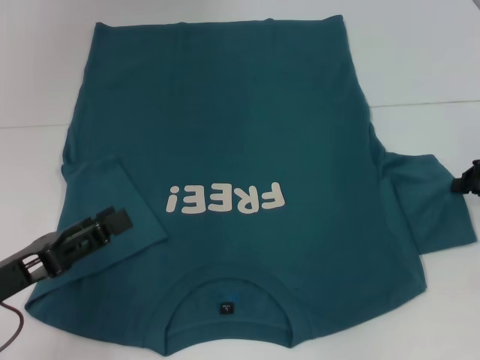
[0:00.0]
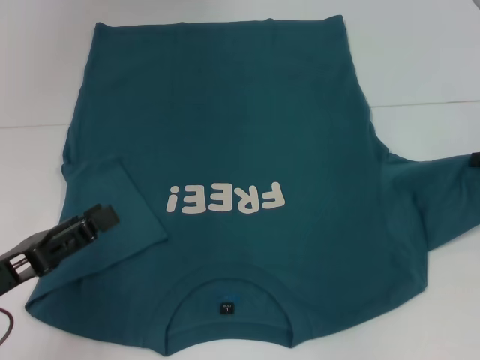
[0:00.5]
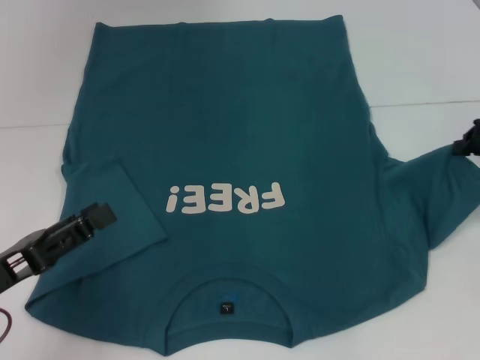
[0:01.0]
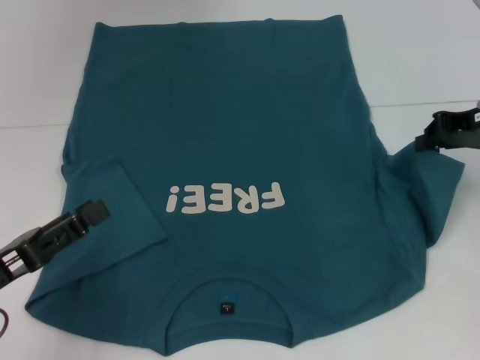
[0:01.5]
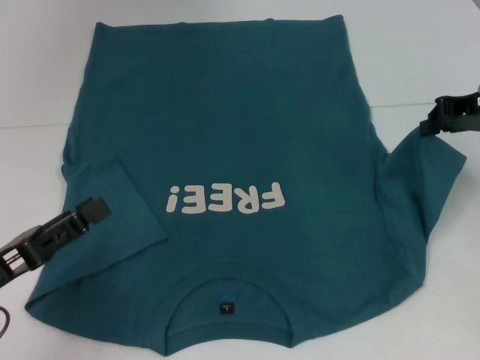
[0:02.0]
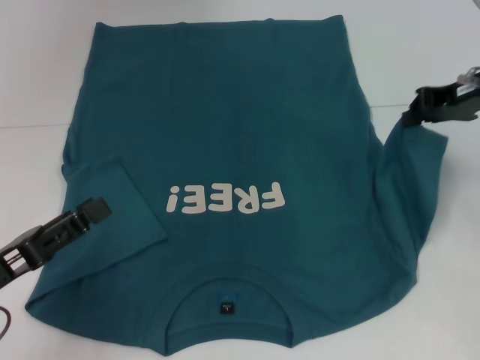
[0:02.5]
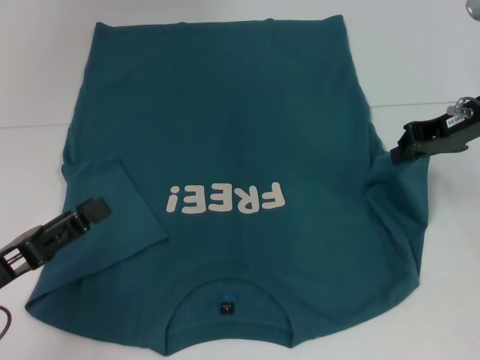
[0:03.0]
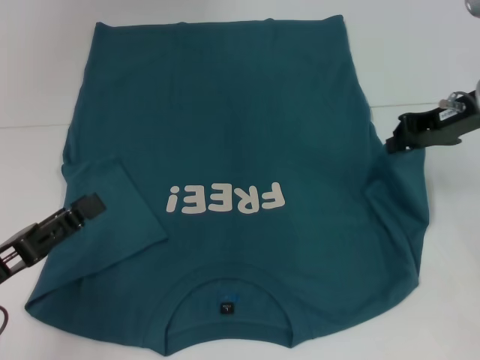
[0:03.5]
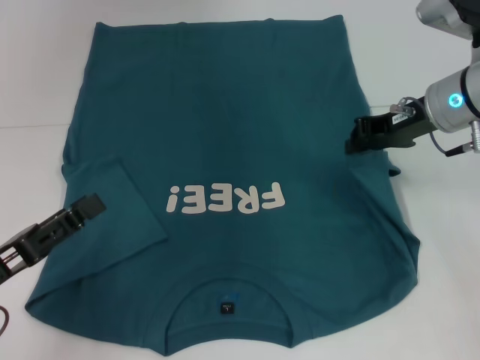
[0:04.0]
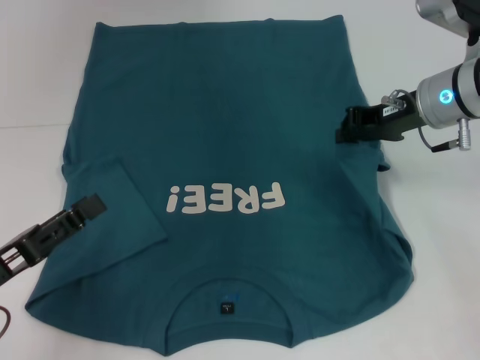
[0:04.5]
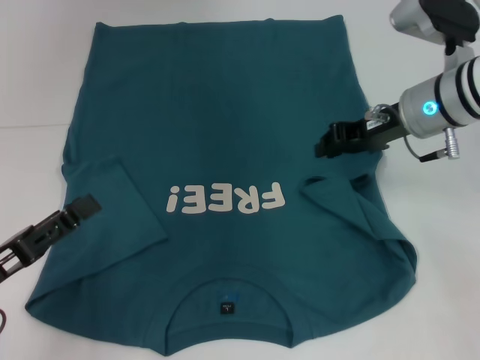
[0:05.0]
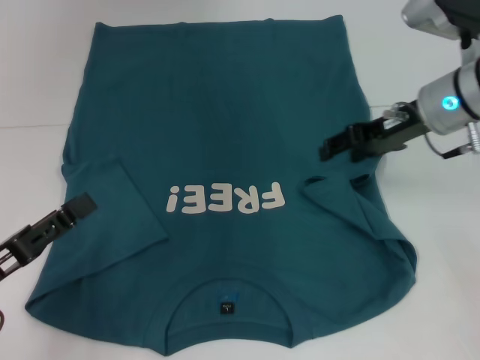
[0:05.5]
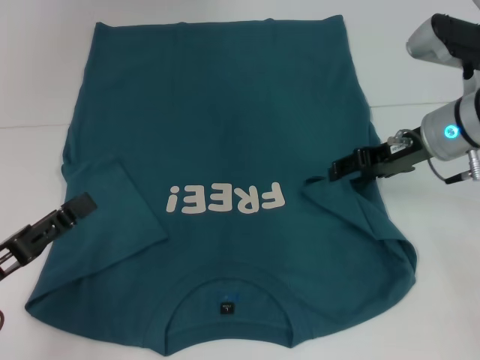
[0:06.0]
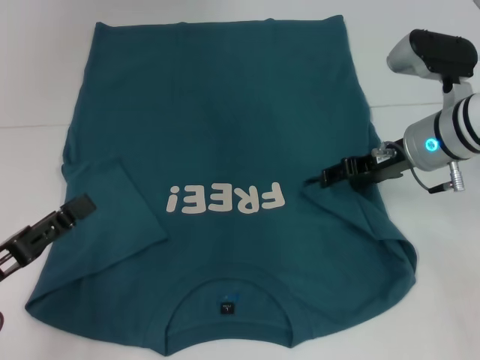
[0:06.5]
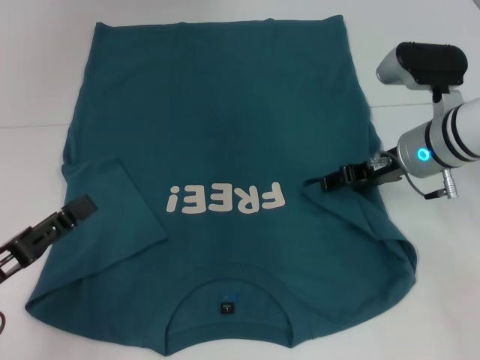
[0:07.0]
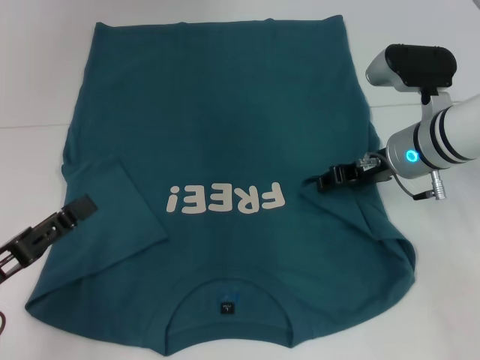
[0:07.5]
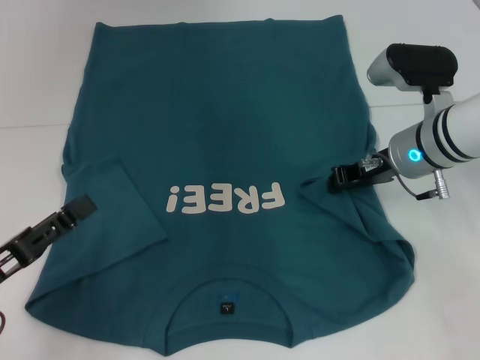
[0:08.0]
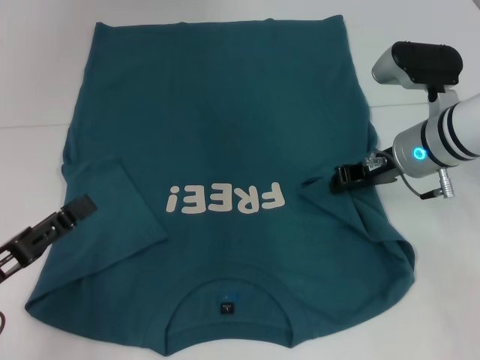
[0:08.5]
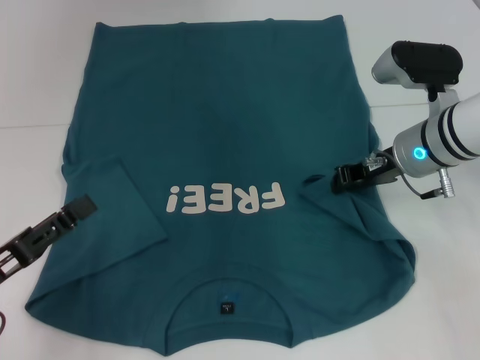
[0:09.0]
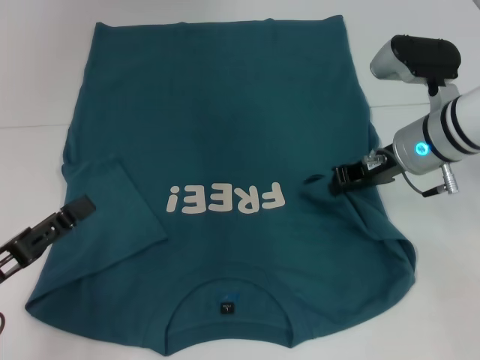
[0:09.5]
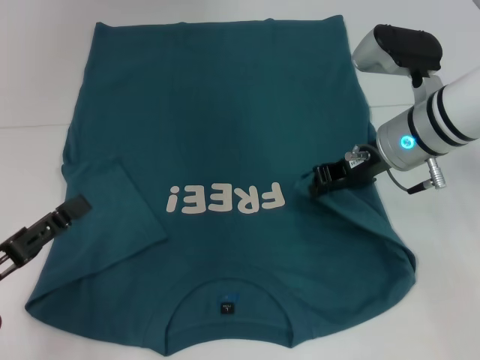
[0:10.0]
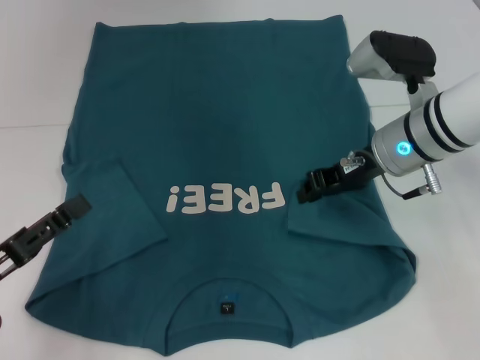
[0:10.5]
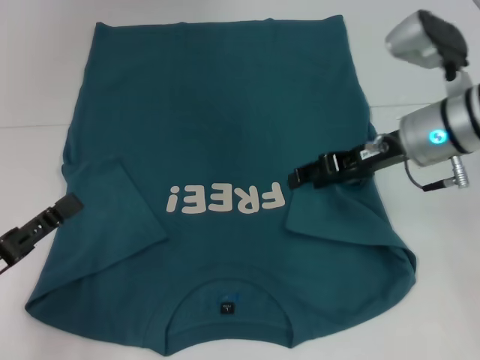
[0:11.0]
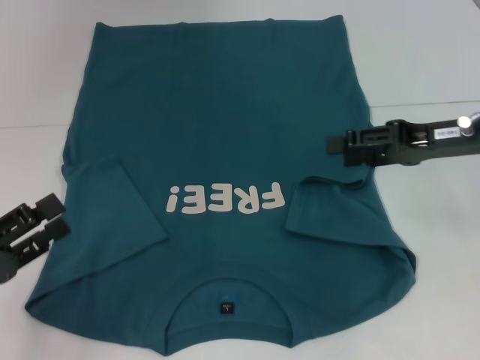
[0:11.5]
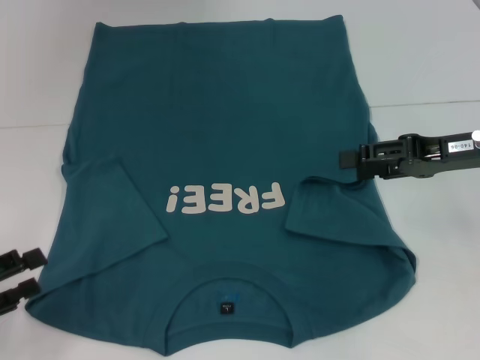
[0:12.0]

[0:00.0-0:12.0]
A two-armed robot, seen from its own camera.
Step, 0:00.0 to 0:10.5: Fold the bottom right sleeve to the right.
0:00.0 to 0:02.0: The right gripper is displaced upward, to the left and forward by roughly 10 cm.
0:02.0 to 0:04.0: The right gripper heads to the left, covering about 10 cm.
0:04.0 to 0:06.0: The right gripper opens its fingers.
0:06.0 to 0:08.0: The right gripper closes its fingers.
0:08.0 to 0:10.0: The grippers make only small movements.
0:10.0 to 0:12.0: The right gripper shifts approximately 10 cm to the right and backward, and opens up. The left gripper is displaced to the left by about 5 cm.

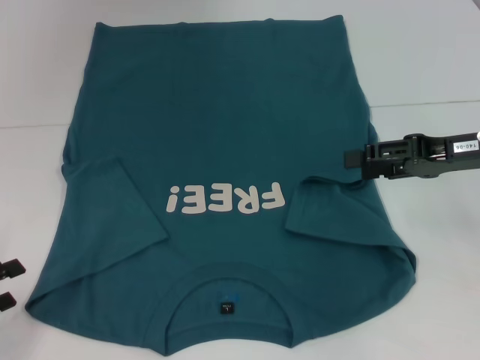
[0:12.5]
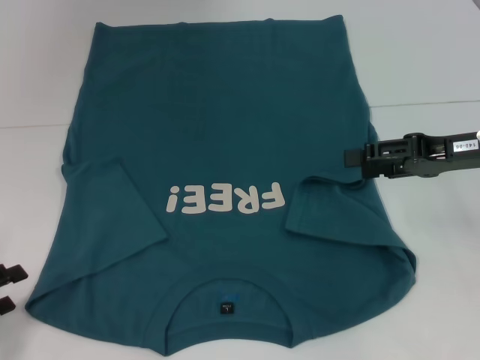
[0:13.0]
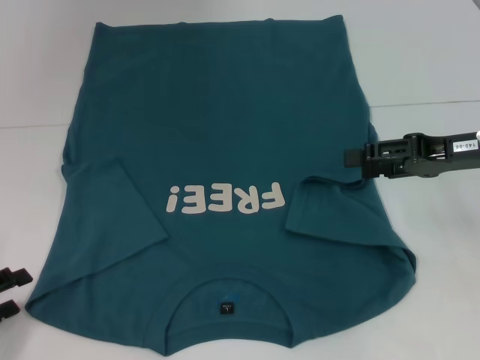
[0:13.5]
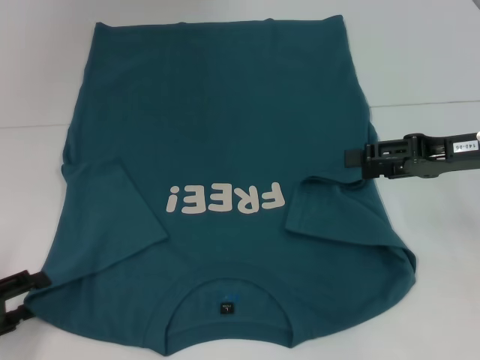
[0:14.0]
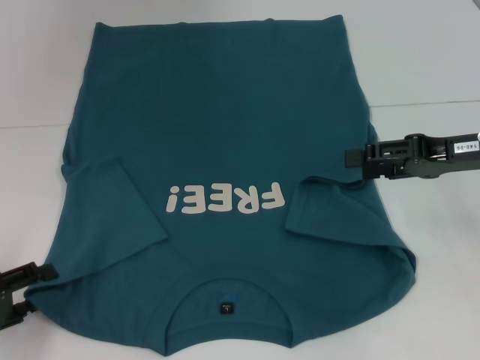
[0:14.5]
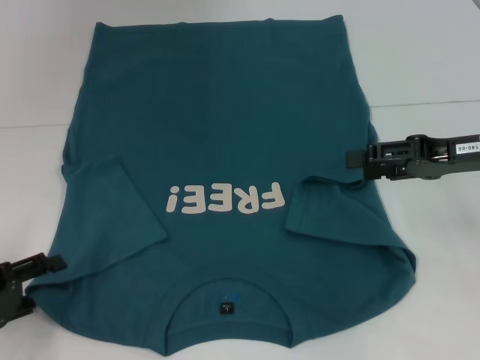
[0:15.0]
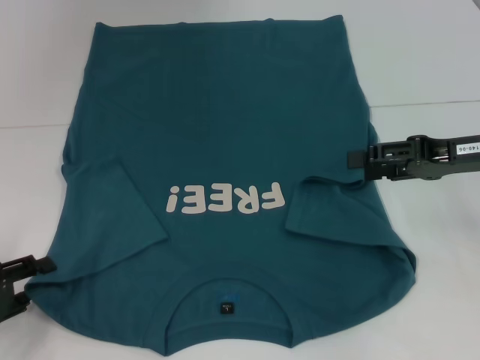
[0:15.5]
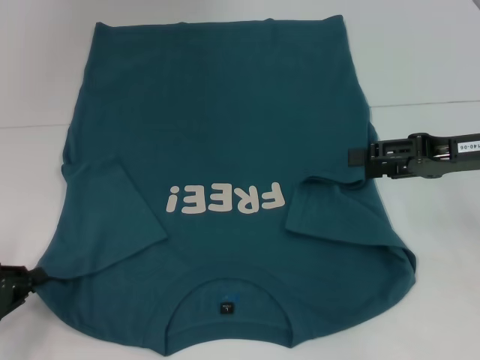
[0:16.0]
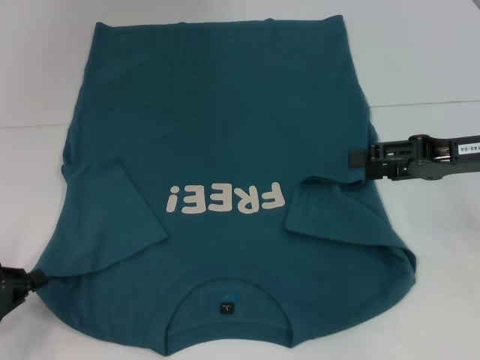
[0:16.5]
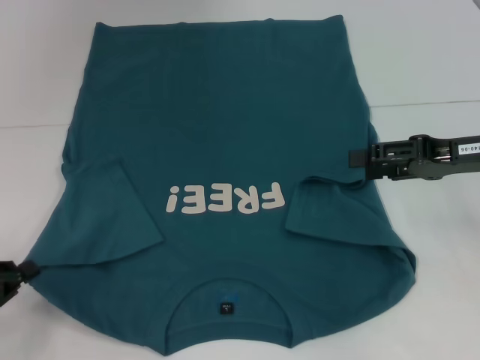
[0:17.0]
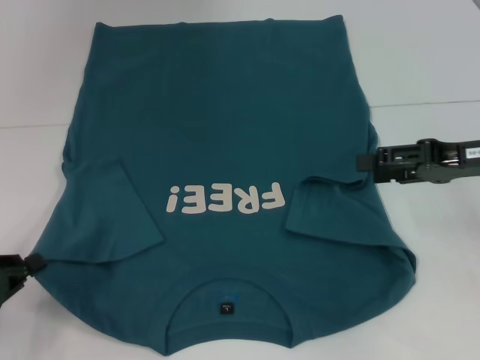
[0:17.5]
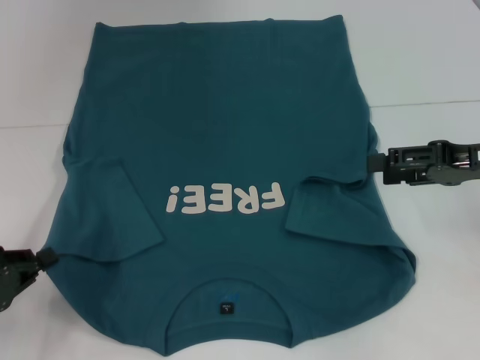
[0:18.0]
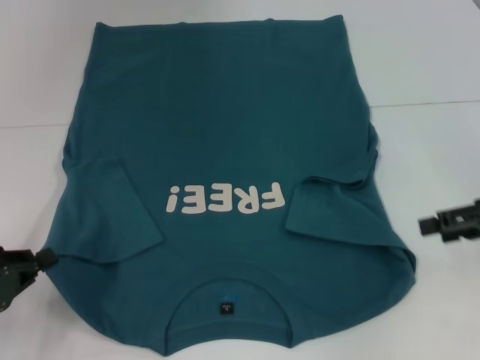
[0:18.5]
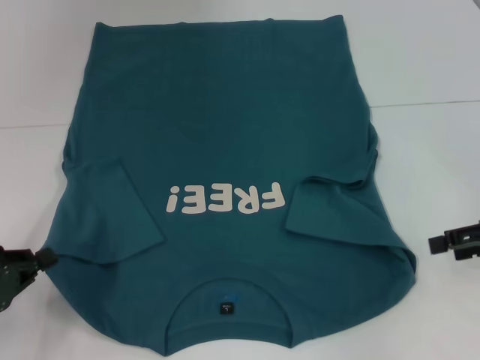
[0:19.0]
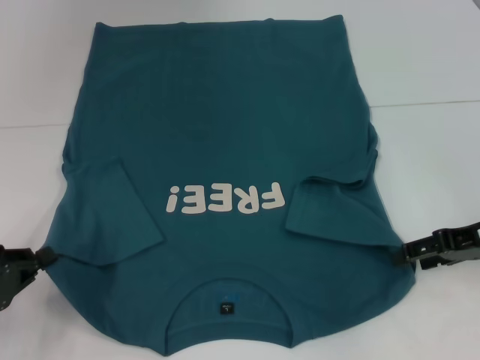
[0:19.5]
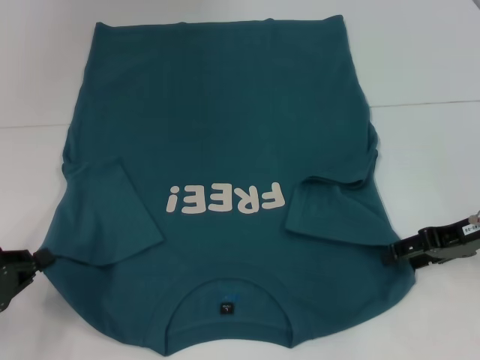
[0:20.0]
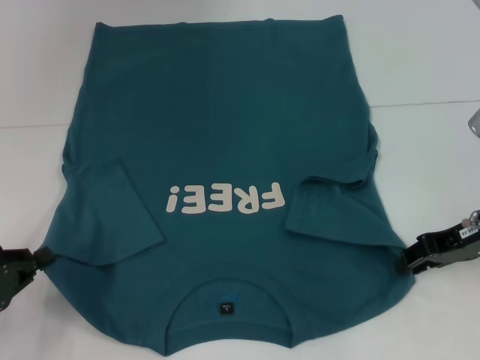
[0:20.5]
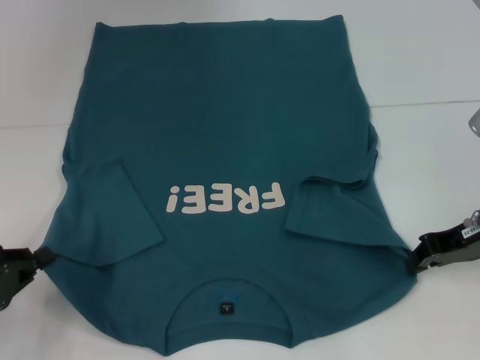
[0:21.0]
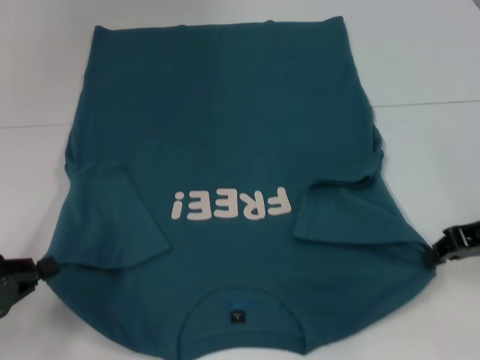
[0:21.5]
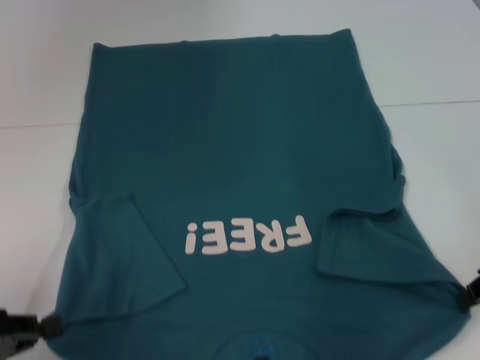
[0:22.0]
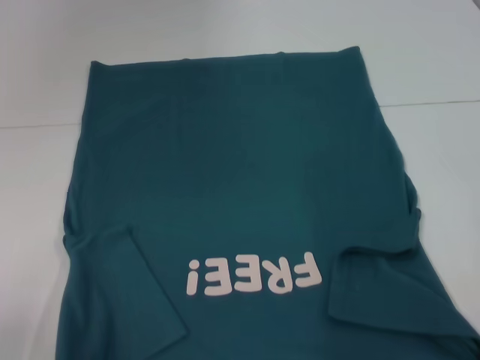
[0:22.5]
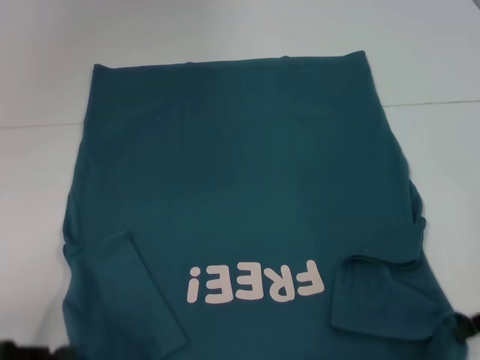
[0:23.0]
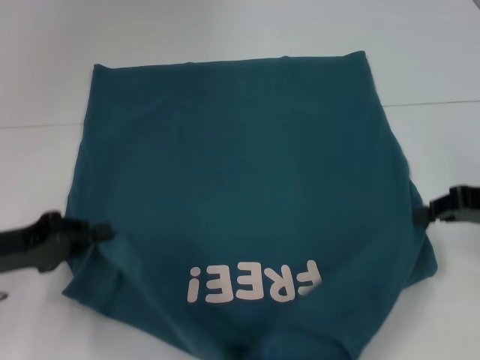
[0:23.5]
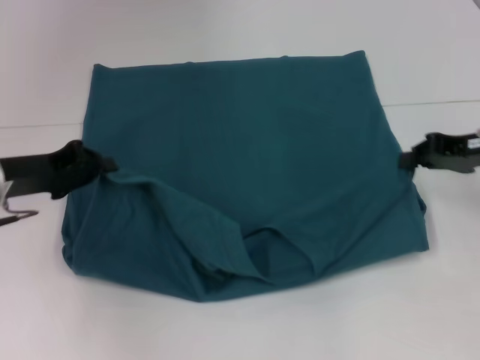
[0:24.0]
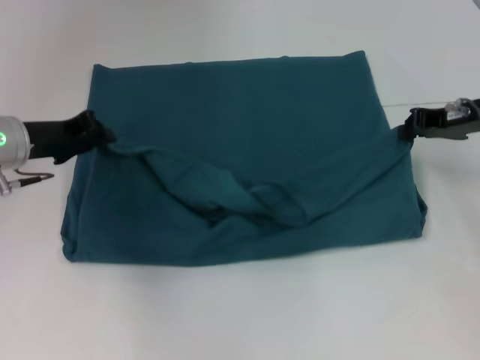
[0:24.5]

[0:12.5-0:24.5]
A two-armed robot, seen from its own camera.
Step, 0:12.5 to 0:16.0: Grab the bottom left corner with your left hand.
Step, 0:16.5 to 0:21.0: Grab the bottom right corner with your right hand.
0:12.5 to 0:14.5: The grippers stay close to where they were, moving slightly.
0:14.5 to 0:16.5: The left gripper closes.
0:16.5 to 0:18.5: The right gripper goes approximately 5 cm to the right.
0:18.5 to 0:20.5: The right gripper shifts roughly 5 cm to the left.
0:20.5 to 0:22.5: The two grippers go approximately 5 cm backward. The right gripper closes up.
0:22.5 to 0:24.5: The left gripper goes roughly 25 cm forward. Meanwhile the right gripper goes about 15 cm forward.

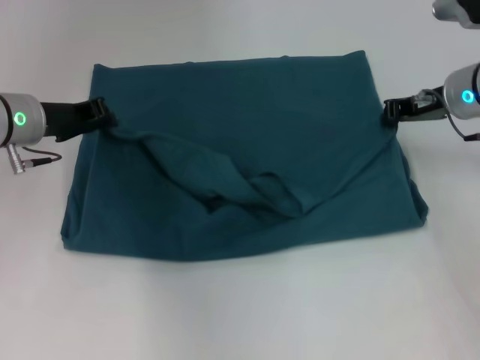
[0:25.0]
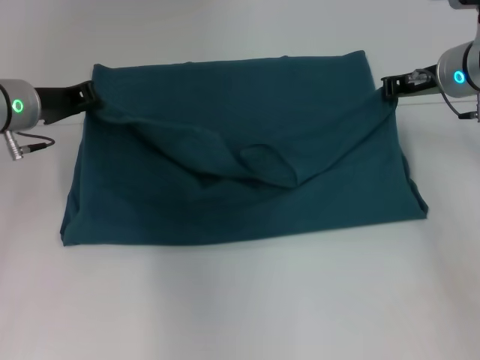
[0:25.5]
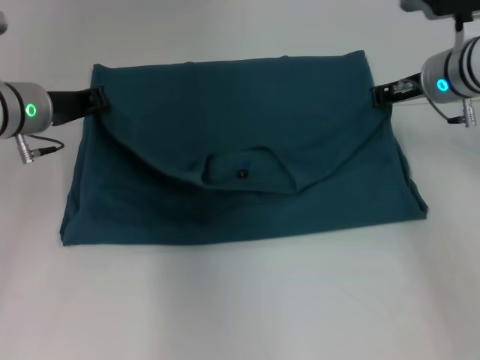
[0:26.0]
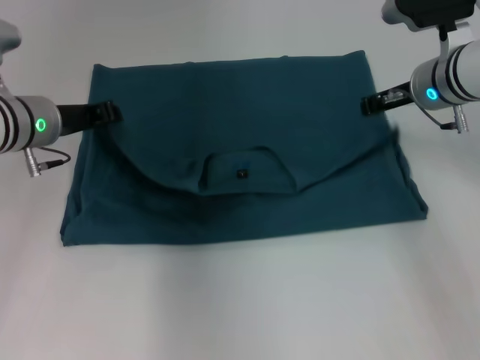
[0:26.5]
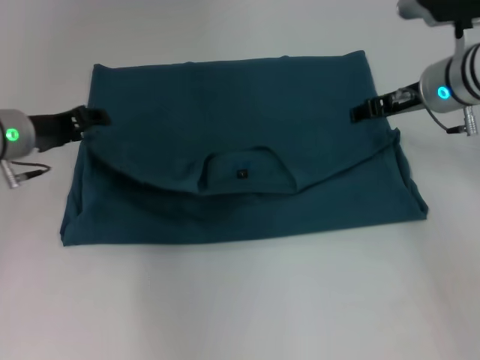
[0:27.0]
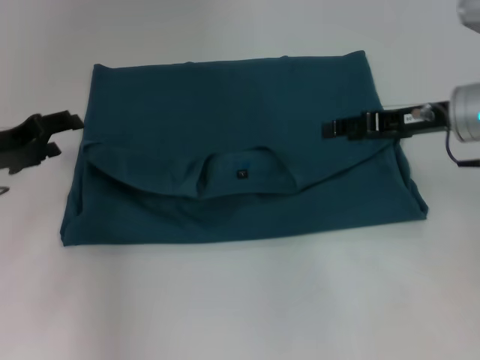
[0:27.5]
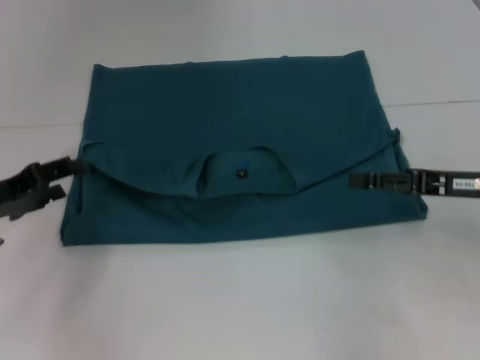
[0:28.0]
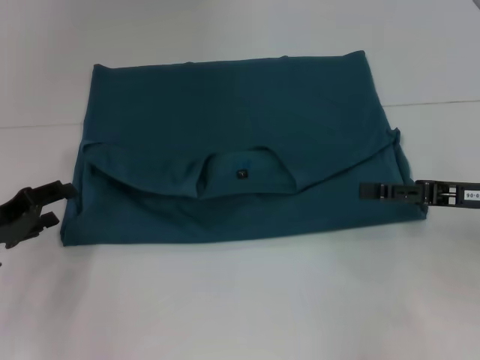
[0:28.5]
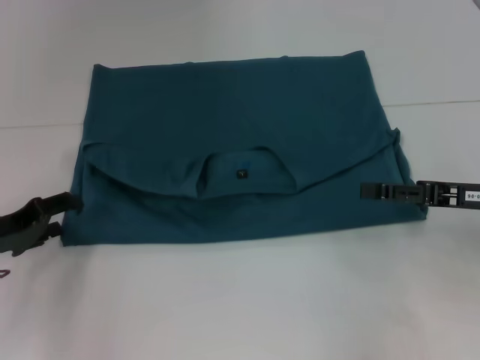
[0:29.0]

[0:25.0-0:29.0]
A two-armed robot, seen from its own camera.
Step, 0:25.0 to 0:27.0: Fold the clothes to the left.
Step, 0:25.0 to 0:27.0: Fold the clothes to the right.
0:25.0 to 0:27.0: The right gripper opens. Meanwhile the left gripper opens up.
0:27.0 to 0:29.0: The left gripper moves backward, downward and to the left, approximately 15 cm. The right gripper heads backward and to the right, covering some 15 cm.
